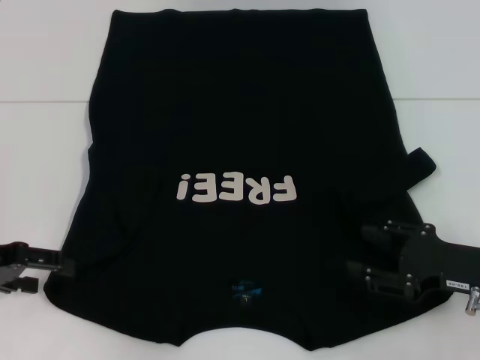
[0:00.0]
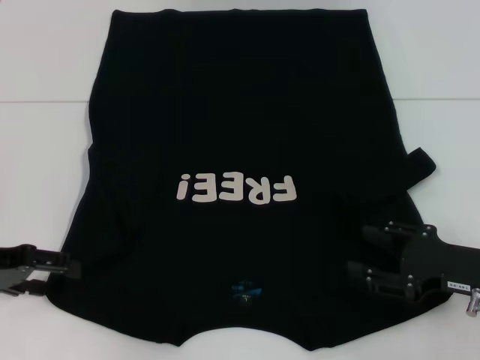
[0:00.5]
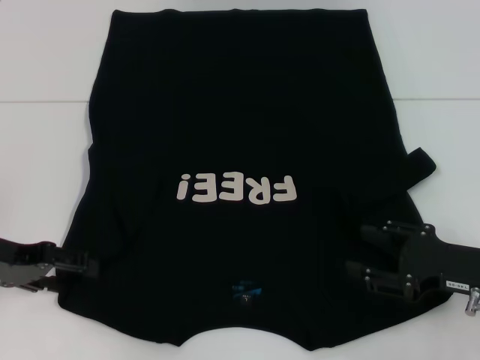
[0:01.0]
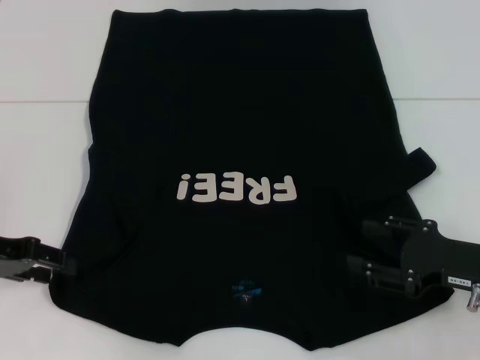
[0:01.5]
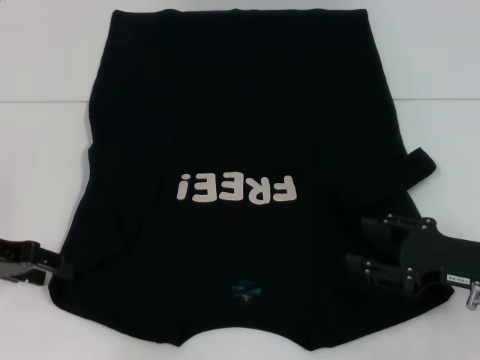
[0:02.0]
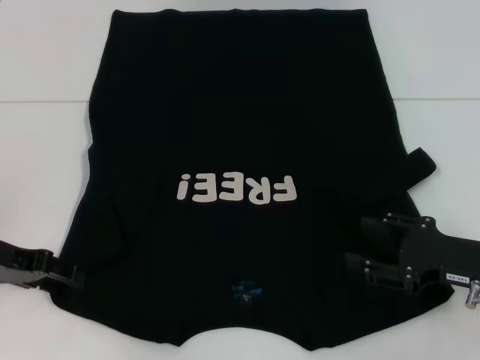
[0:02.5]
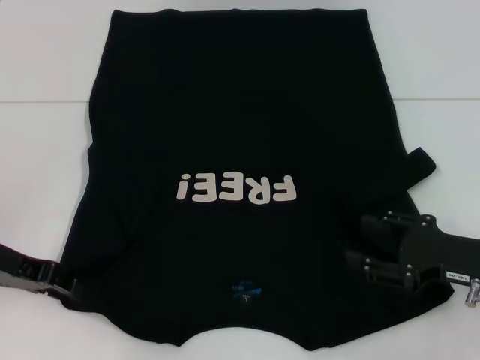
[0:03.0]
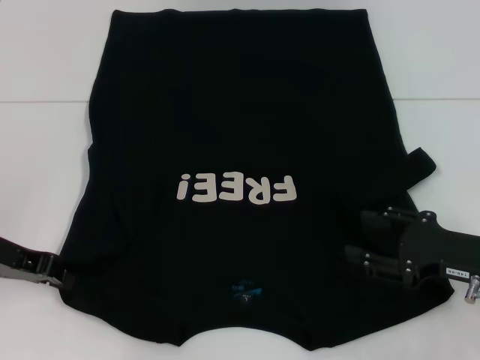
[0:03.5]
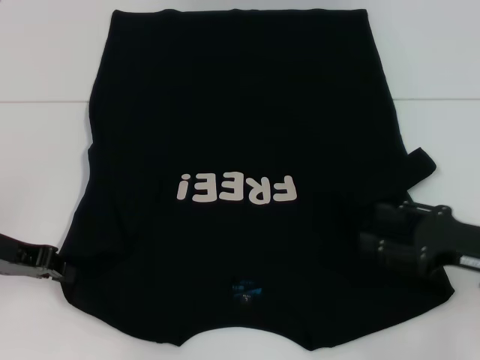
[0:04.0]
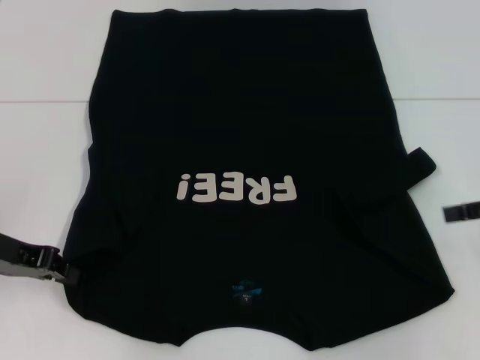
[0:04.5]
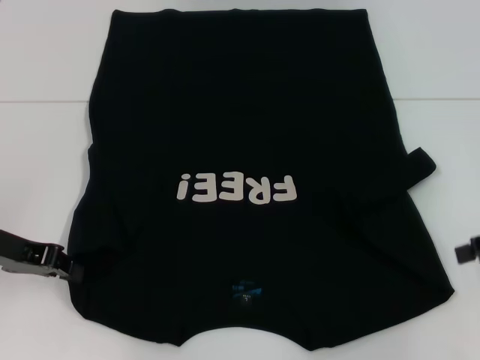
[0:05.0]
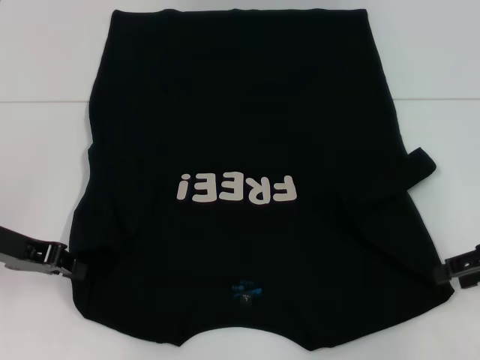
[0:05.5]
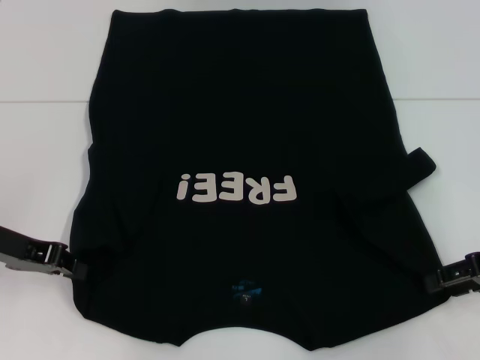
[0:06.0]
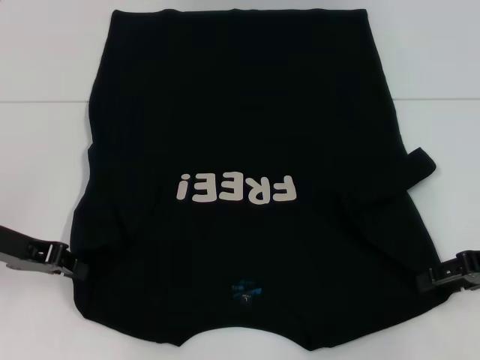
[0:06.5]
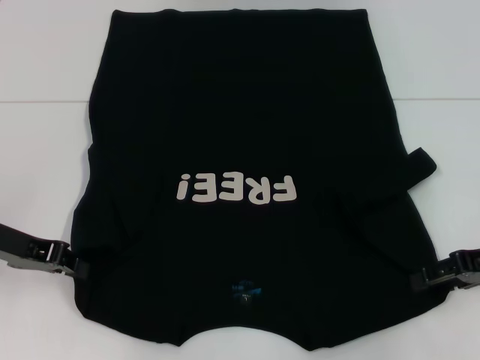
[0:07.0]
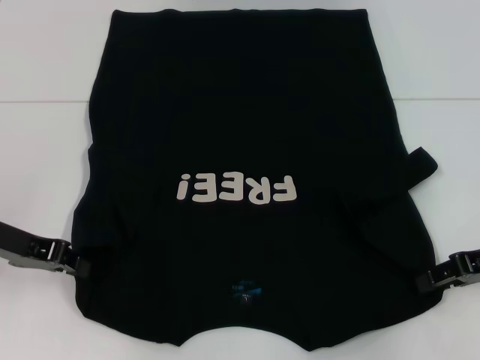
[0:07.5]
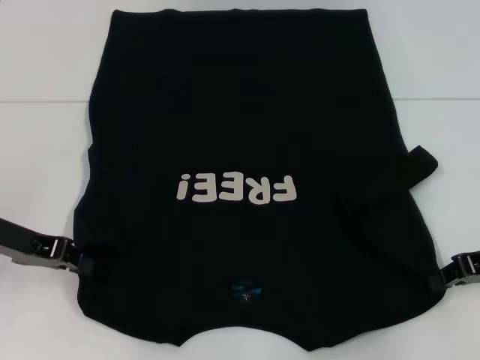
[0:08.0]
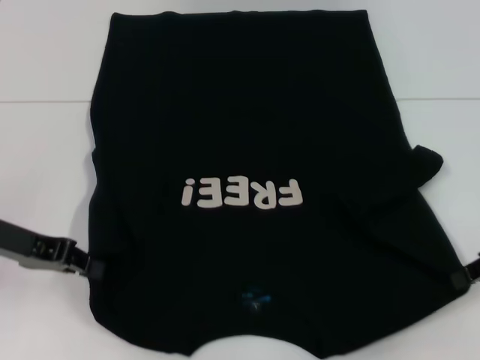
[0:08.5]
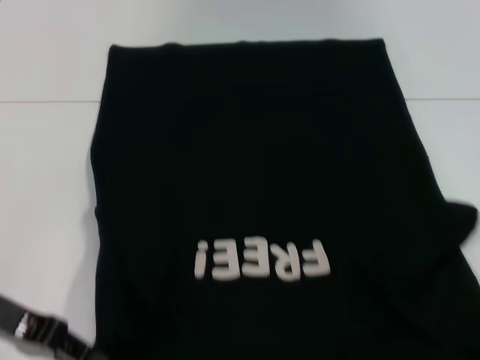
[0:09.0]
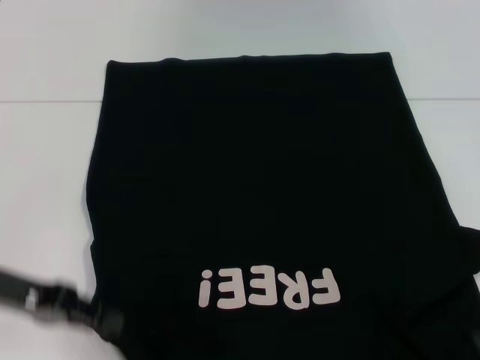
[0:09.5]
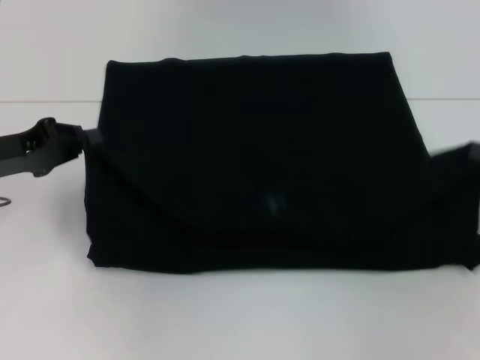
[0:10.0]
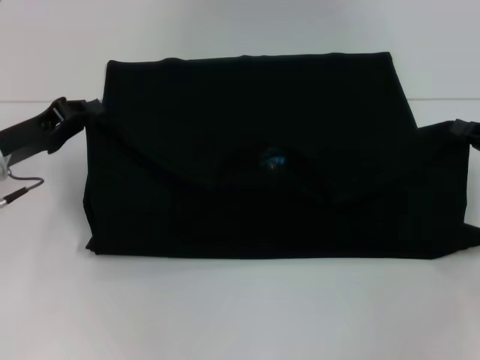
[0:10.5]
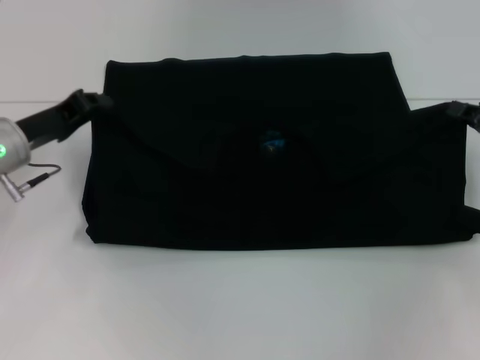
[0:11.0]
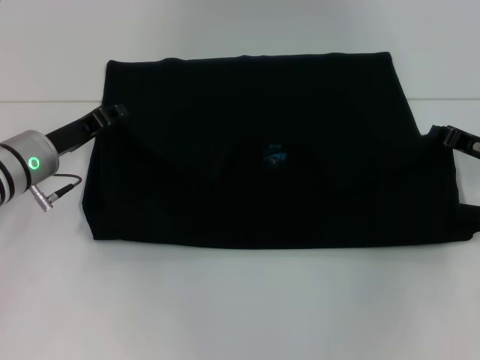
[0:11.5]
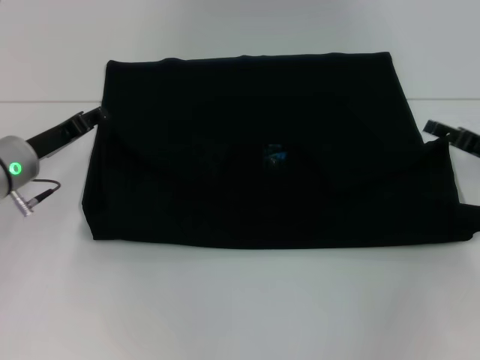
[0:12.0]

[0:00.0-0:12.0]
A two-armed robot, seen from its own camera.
Step, 0:00.0 to 0:03.0: Grab the bottom left corner with your left hand.
Step, 0:03.5 to 0:08.0: Grab the bottom right corner with your right hand.
Step, 0:08.5 to 0:11.5: Fold the clothes with your left hand.
Step, 0:08.5 to 0:11.5: Fold the clothes with your right hand.
0:00.0 to 0:02.0: There are only small adjustments of the grippers.
0:02.0 to 0:04.0: The left gripper closes up.
0:06.0 to 0:08.0: The right gripper closes its fingers.
0:08.0 to 0:10.0: The right gripper travels to the right by roughly 5 cm.
0:10.0 to 0:12.0: The right gripper heads to the left, downward and forward, covering approximately 10 cm, and opens its fingers. Meanwhile the left gripper heads downward, covering some 5 cm, and opens.

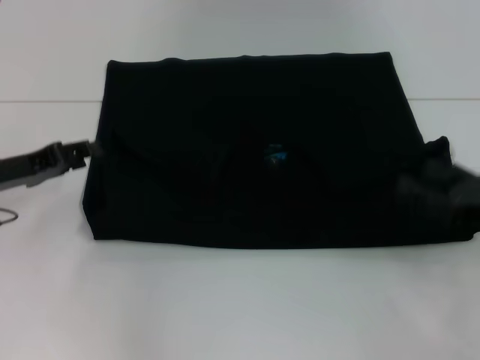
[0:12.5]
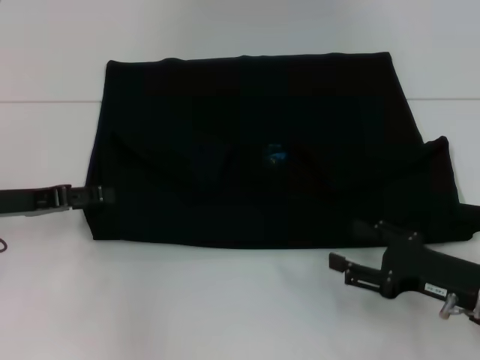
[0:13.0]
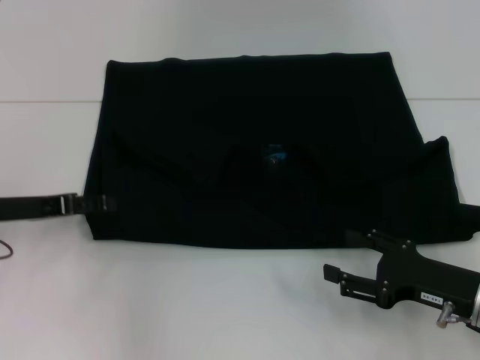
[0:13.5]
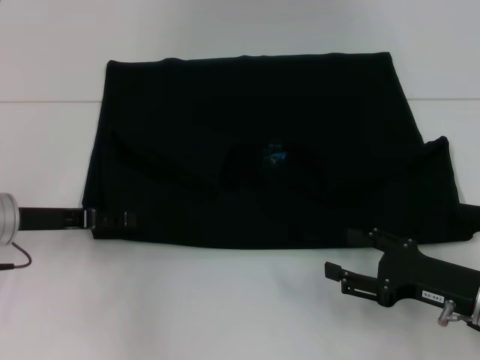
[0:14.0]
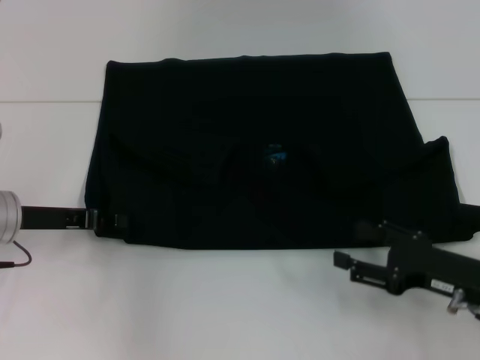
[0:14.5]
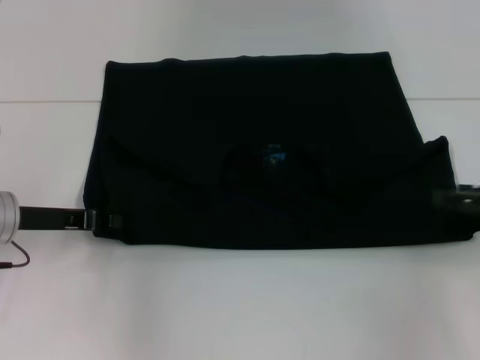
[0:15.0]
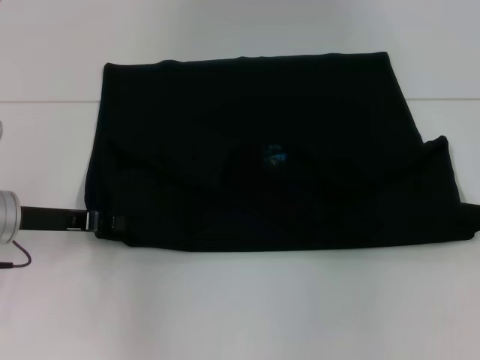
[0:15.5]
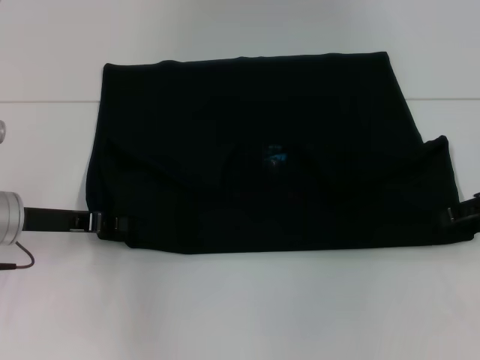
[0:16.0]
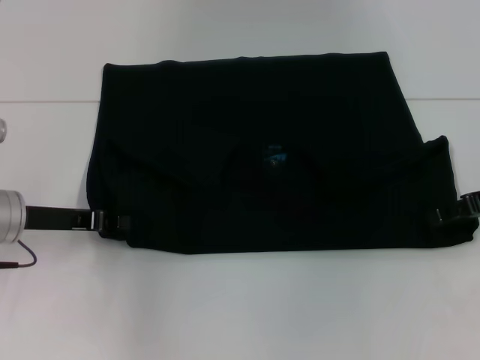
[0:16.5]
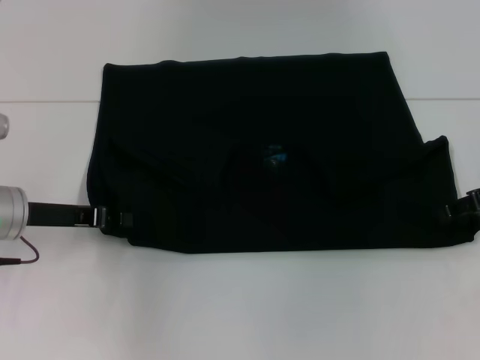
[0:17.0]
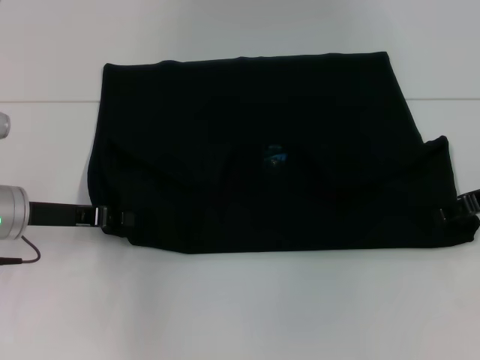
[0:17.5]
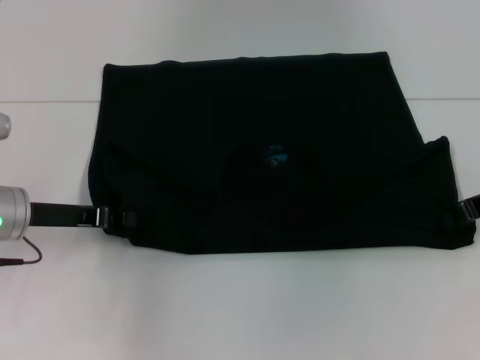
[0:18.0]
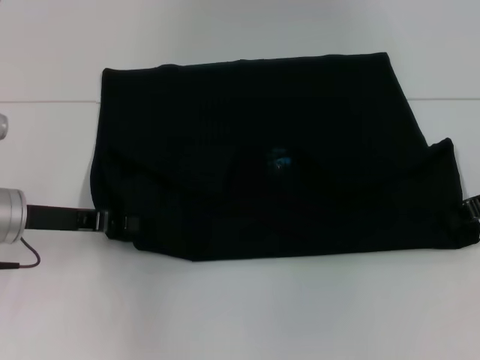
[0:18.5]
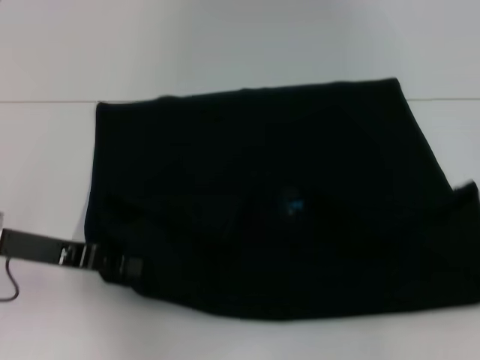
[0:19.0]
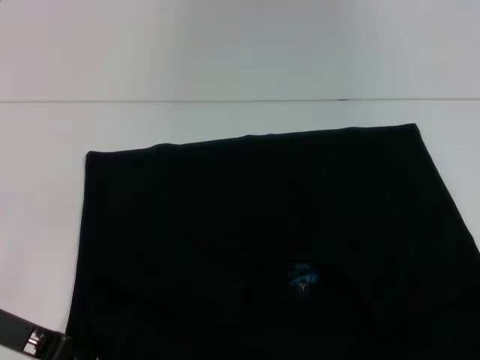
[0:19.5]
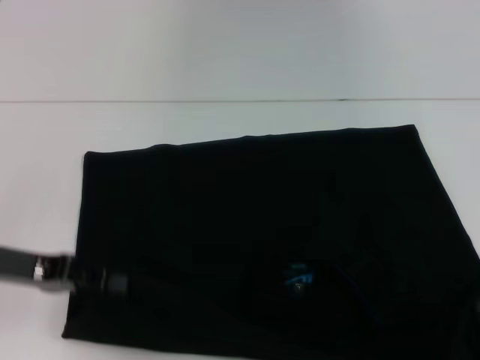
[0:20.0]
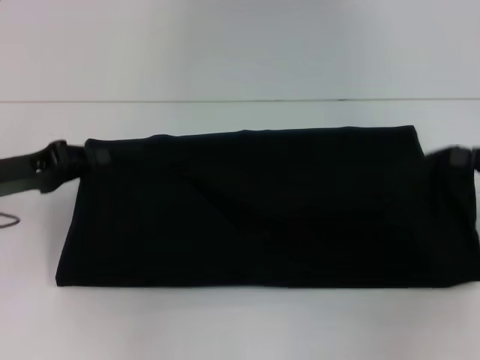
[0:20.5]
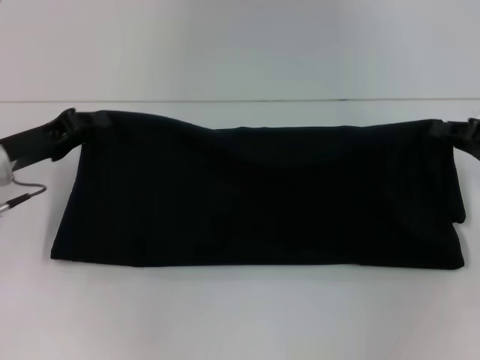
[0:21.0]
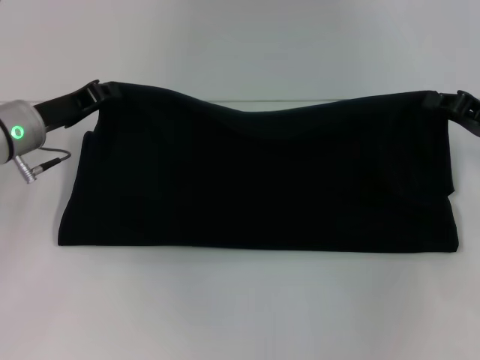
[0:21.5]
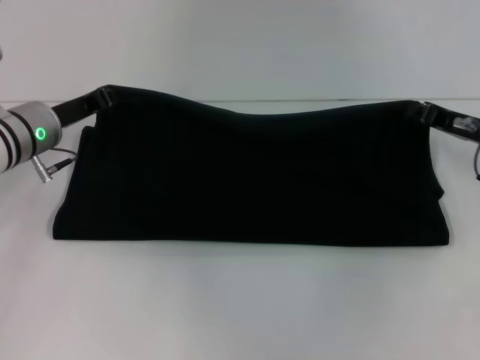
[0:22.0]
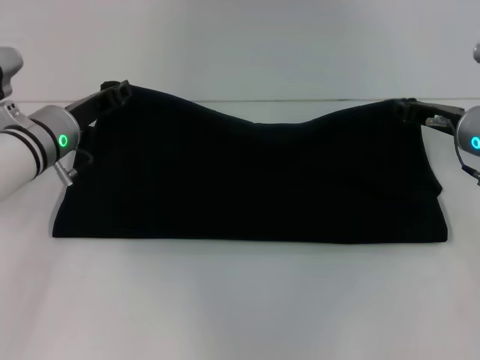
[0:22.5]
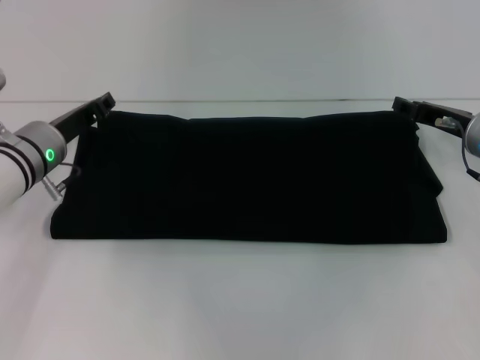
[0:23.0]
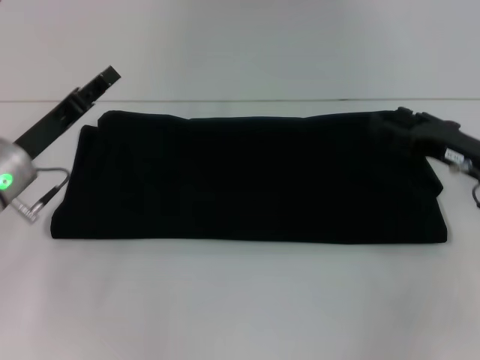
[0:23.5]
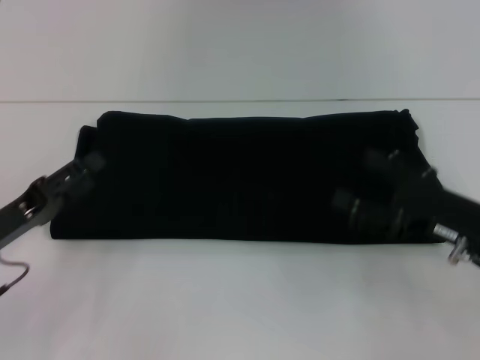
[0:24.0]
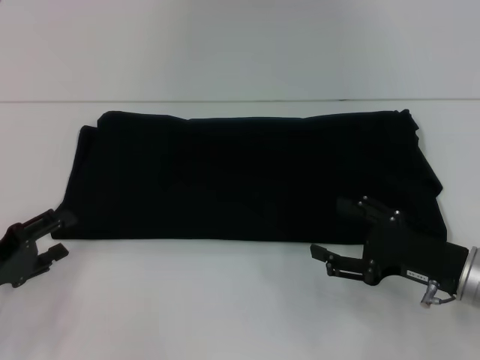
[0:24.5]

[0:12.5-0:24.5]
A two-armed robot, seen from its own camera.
Step, 0:12.5 to 0:19.5: Pull the clothes with your left hand.
Step, 0:12.5 to 0:19.5: Pull the clothes with your right hand.
Step, 0:20.0 to 0:23.0: Fold the clothes with your right hand.
0:12.5 to 0:14.5: The right gripper heads to the left, covering some 5 cm.
0:14.5 to 0:16.5: The left gripper closes up, while the right gripper moves forward, upward and to the right, some 15 cm.
0:16.5 to 0:18.5: The right gripper closes its fingers.
0:18.5 to 0:20.5: The right gripper moves to the right, about 5 cm.
0:20.5 to 0:22.5: The right gripper travels to the left and forward by roughly 15 cm; the left gripper is displaced to the right and forward by approximately 10 cm.
0:22.5 to 0:24.5: The right gripper moves backward, some 15 cm, and opens. Meanwhile the left gripper goes approximately 20 cm backward and to the left, and opens.

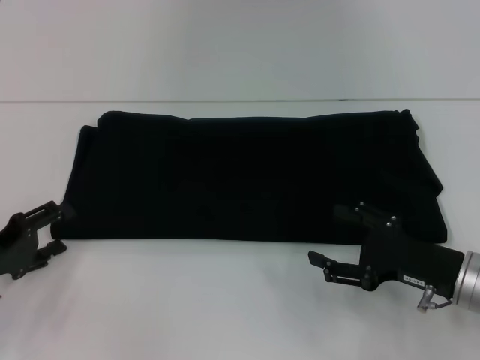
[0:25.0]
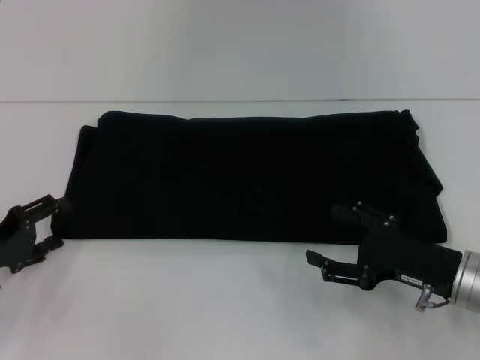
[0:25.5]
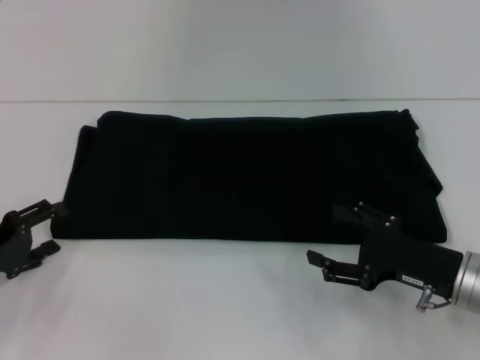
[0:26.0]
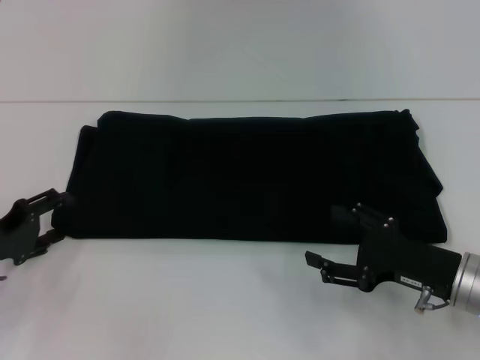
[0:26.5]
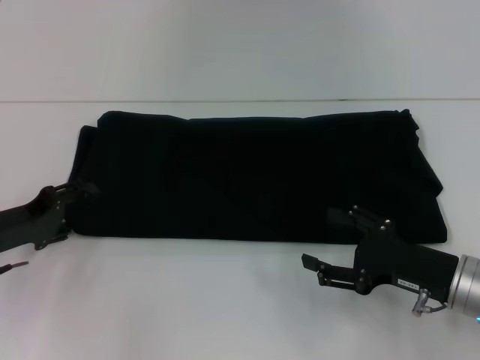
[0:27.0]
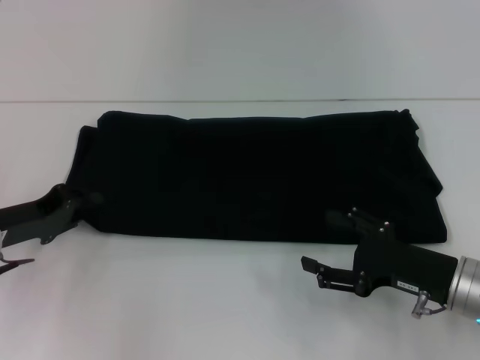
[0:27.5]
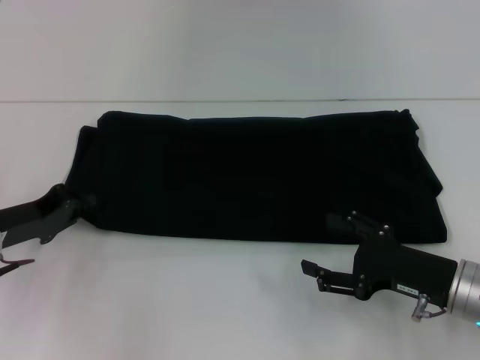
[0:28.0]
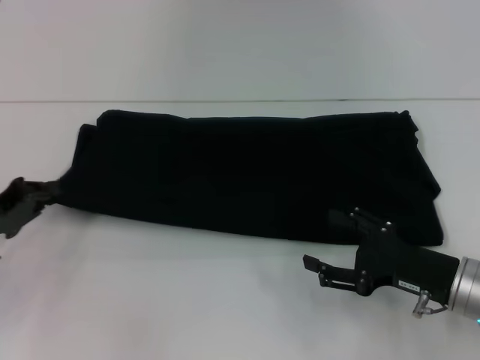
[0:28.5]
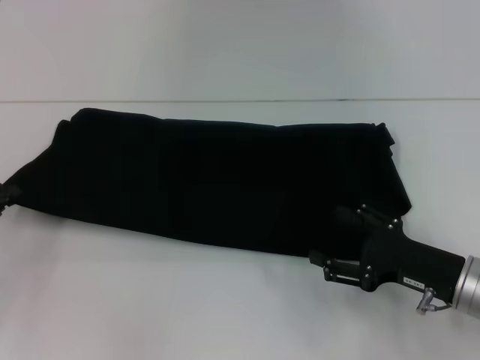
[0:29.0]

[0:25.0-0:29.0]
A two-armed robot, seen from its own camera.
0:25.0 to 0:27.0: The left gripper moves some 5 cm.
0:27.0 to 0:29.0: The left gripper is displaced to the left by about 5 cm, and closes its fingers.
